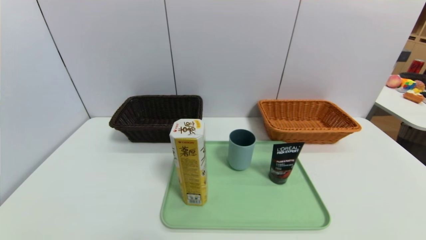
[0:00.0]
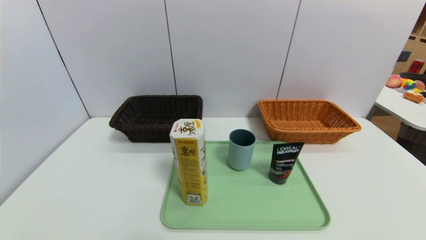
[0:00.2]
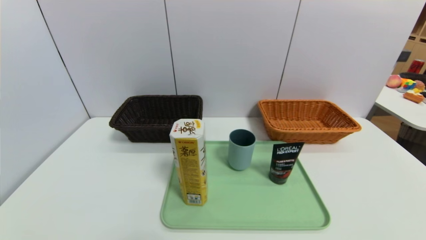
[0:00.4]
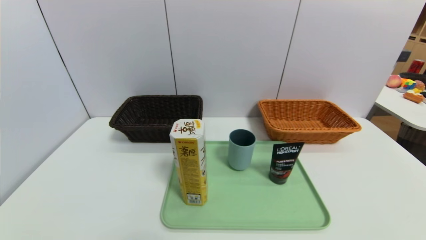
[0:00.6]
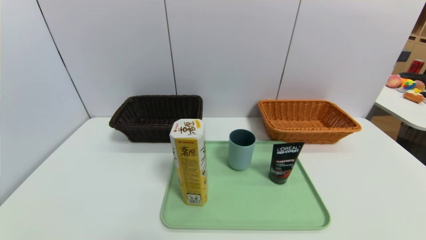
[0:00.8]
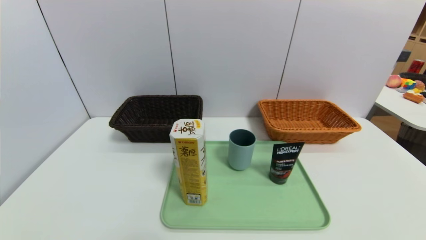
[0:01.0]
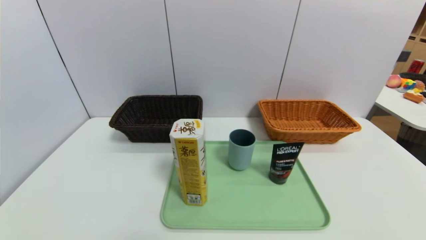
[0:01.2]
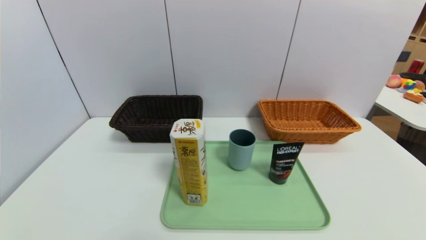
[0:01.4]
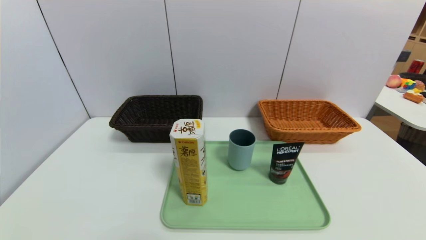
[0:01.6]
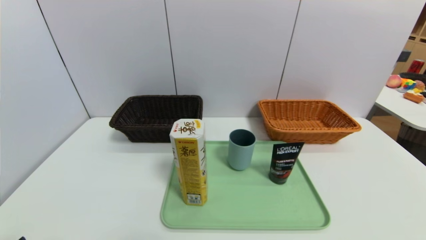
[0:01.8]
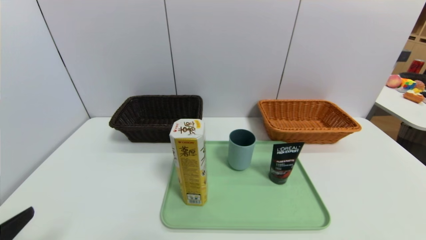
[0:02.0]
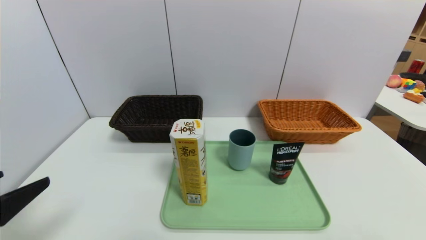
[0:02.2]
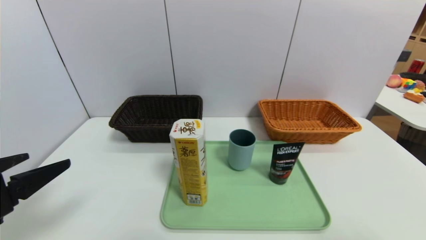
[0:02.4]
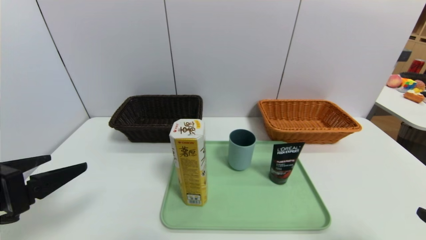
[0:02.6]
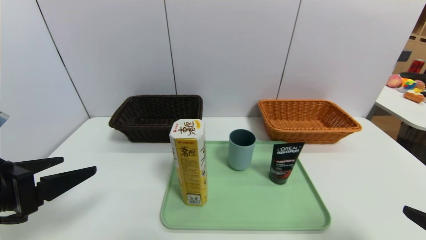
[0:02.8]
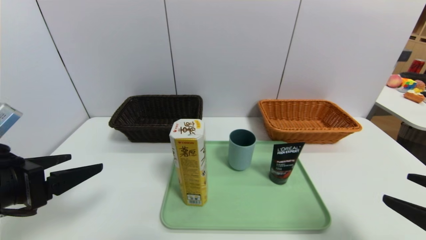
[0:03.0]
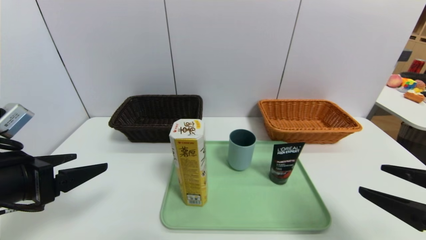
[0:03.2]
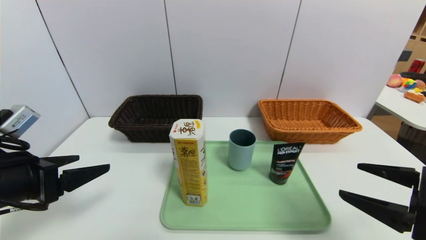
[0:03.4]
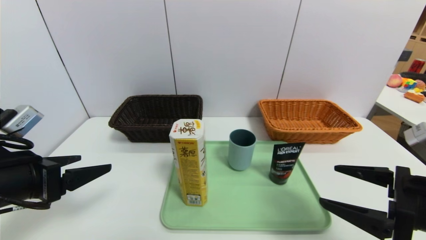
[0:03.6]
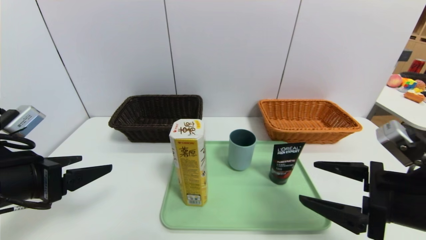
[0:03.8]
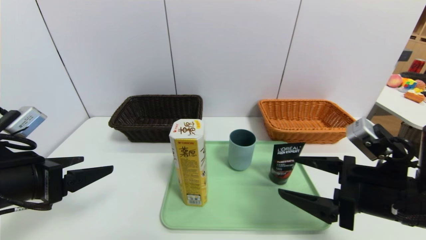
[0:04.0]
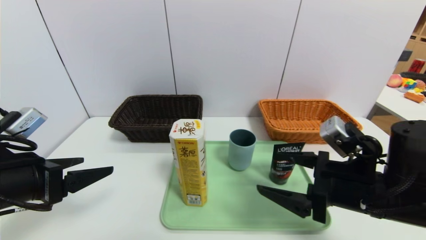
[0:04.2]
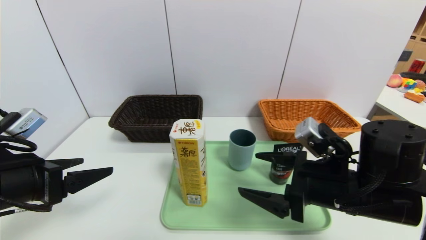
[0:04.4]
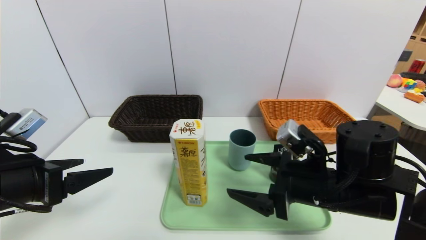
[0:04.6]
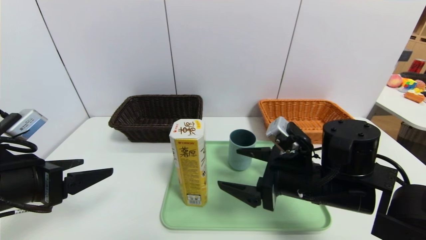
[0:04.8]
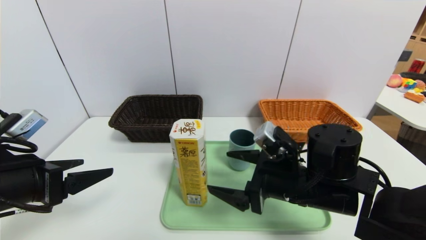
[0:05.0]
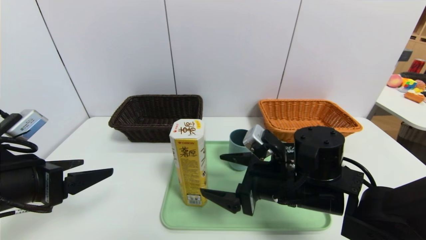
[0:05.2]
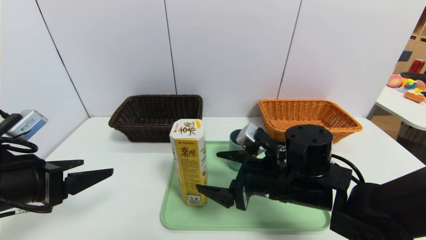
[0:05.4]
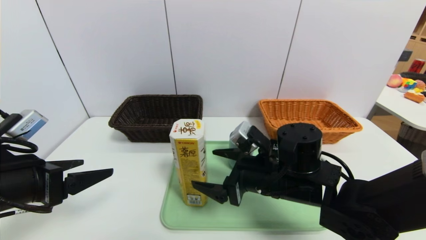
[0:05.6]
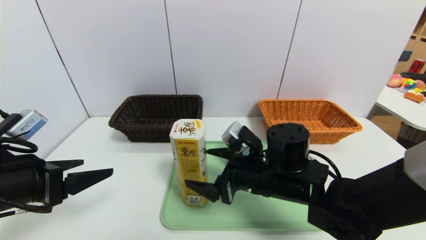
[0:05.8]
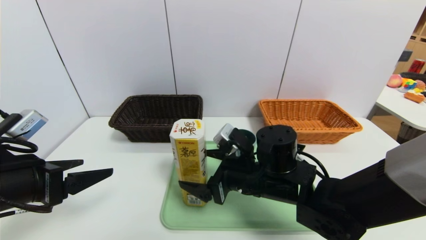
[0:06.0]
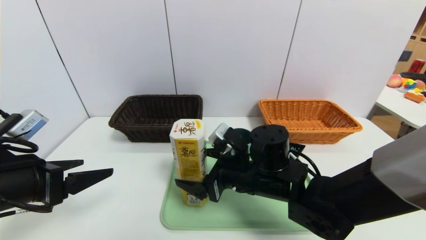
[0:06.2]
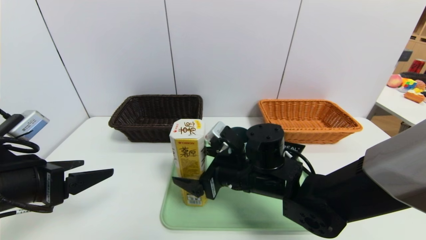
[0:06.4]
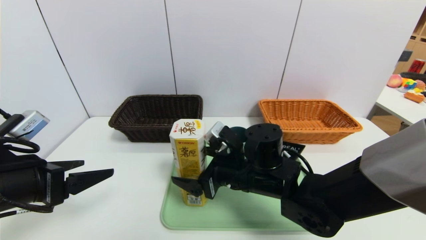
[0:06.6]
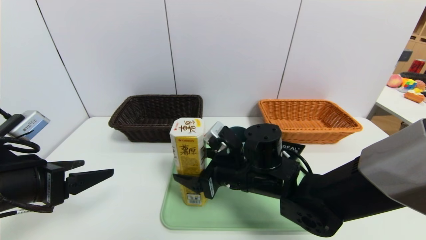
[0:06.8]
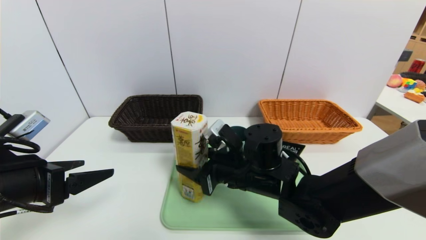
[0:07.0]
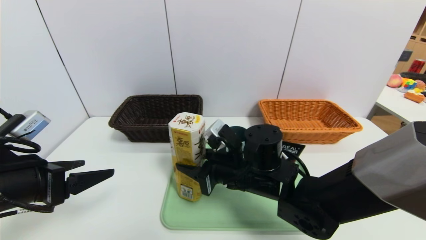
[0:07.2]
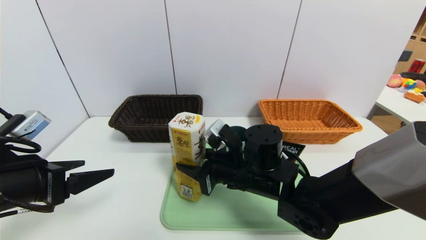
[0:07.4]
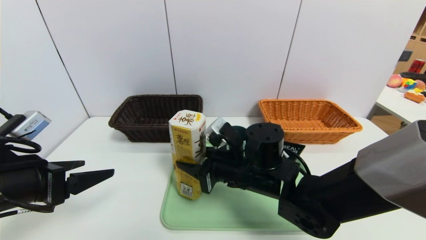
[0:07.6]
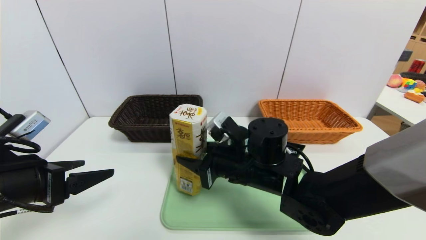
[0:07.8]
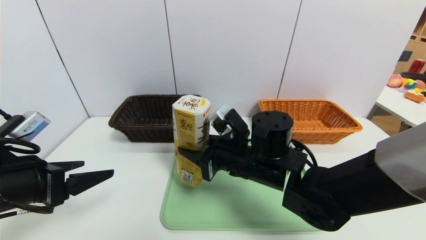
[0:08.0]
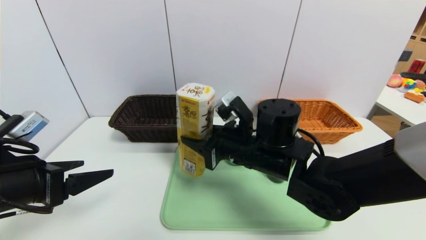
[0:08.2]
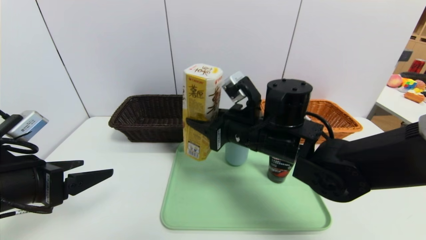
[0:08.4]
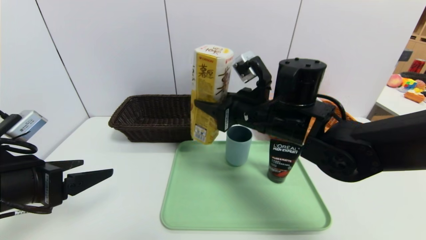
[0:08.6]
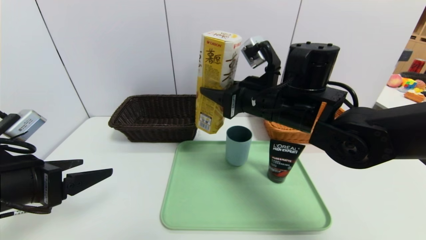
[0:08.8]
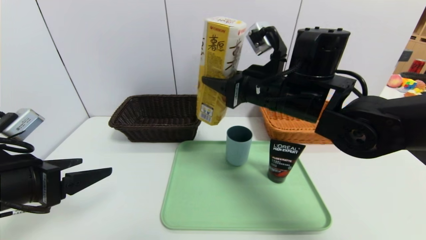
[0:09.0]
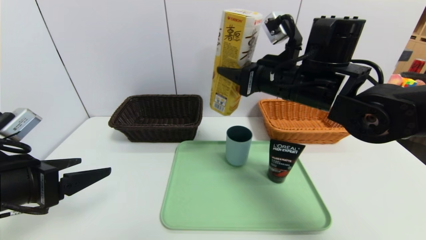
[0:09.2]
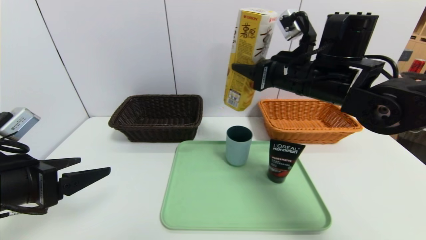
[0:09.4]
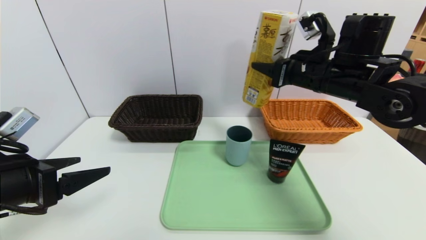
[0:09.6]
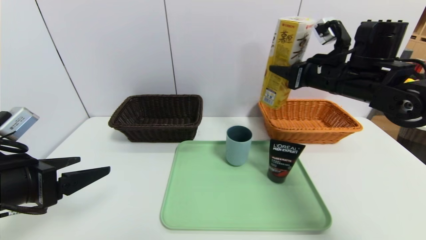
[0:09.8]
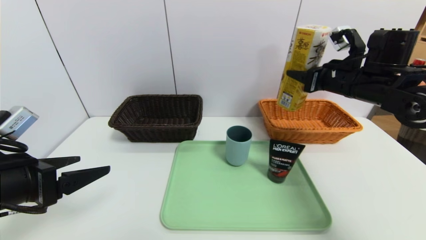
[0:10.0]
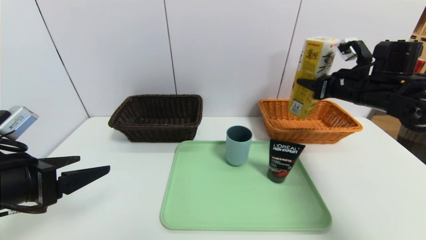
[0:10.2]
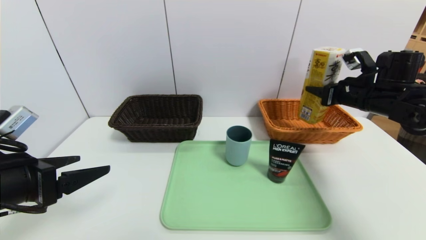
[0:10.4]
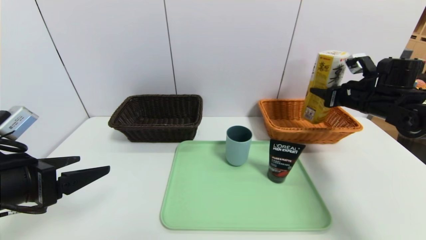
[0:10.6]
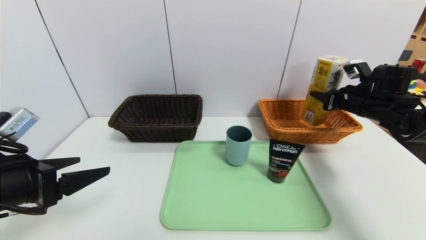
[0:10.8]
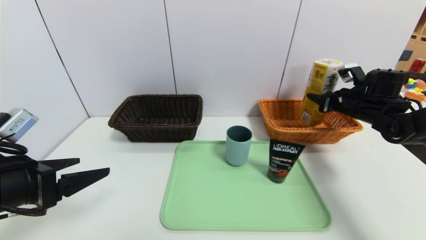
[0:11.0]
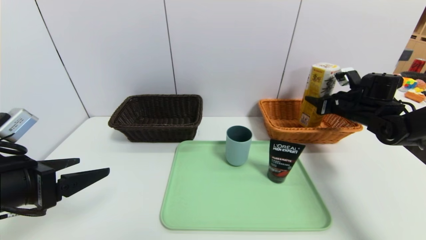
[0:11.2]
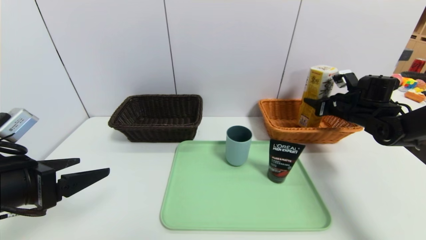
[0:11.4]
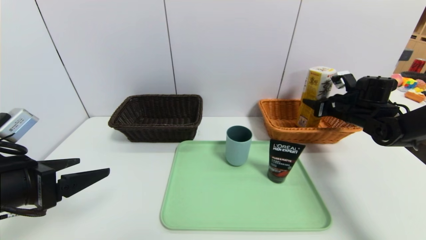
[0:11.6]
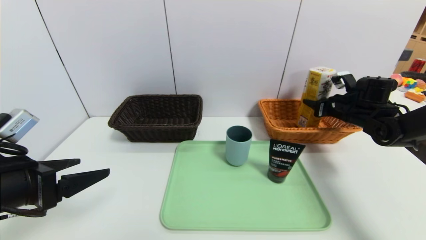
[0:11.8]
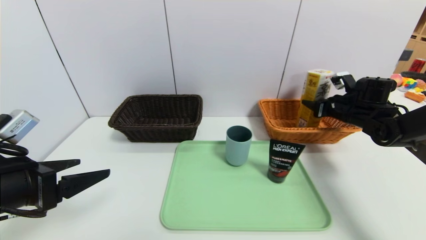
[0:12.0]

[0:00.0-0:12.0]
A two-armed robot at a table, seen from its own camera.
Task of the whole recording: place the food in the right basket with the right gripper, and place the non food items in the left basket with the left gripper.
0:01.6 to 0:03.0: Both grippers travel together forward and upward, about 15 cm.
0:03.0 to 0:04.4: The right gripper heads to the left and forward, covering approximately 20 cm.
0:04.4 to 0:06.0: The right gripper shifts some 10 cm to the left and forward.
0:06.0 to 0:07.6: The right gripper closes its fingers.
0:07.6 to 0:09.0: The right gripper moves upward, some 15 cm.
0:09.0 to 0:10.4: The right gripper moves to the right, about 20 cm.
0:10.4 to 0:12.0: The right gripper shifts roughly 10 cm downward and forward.

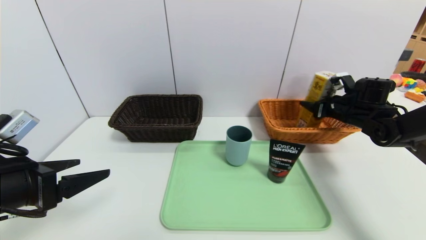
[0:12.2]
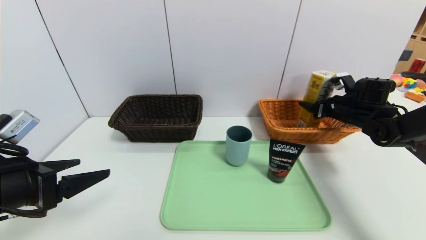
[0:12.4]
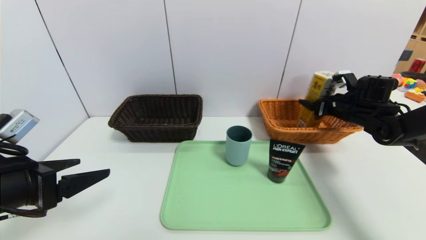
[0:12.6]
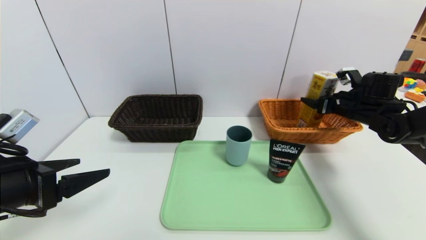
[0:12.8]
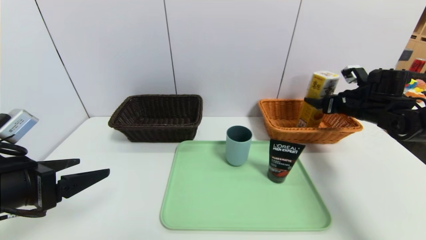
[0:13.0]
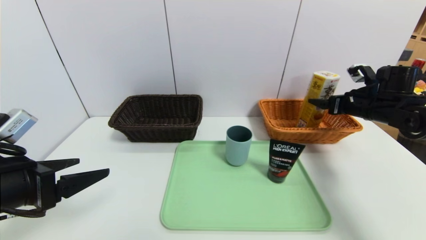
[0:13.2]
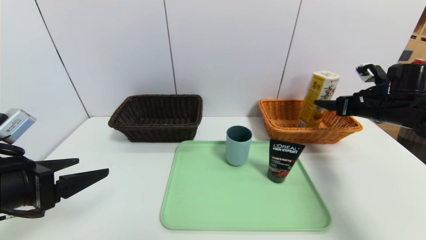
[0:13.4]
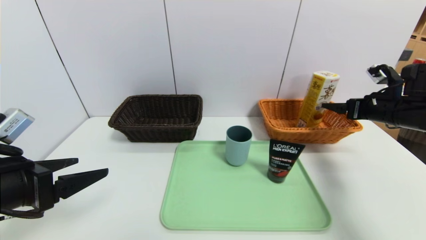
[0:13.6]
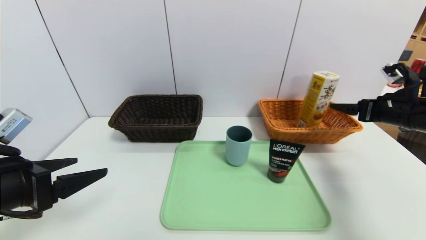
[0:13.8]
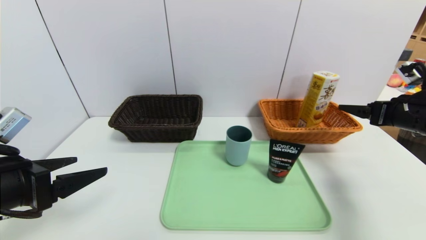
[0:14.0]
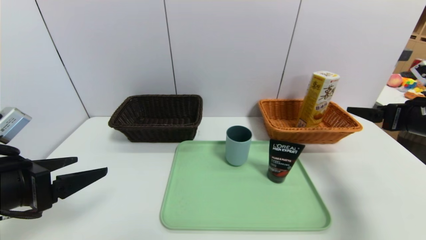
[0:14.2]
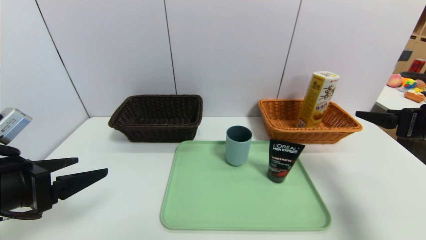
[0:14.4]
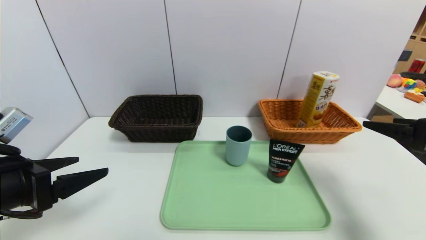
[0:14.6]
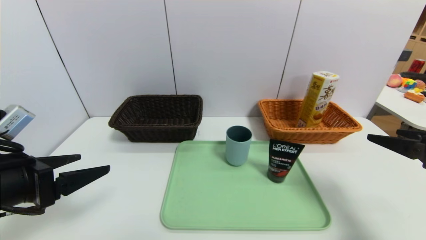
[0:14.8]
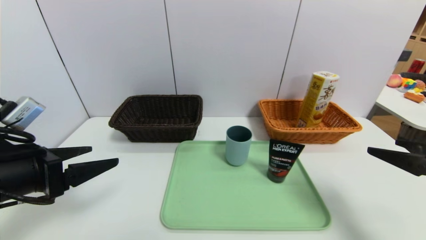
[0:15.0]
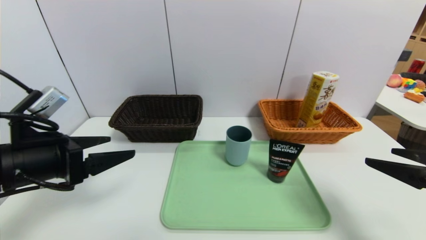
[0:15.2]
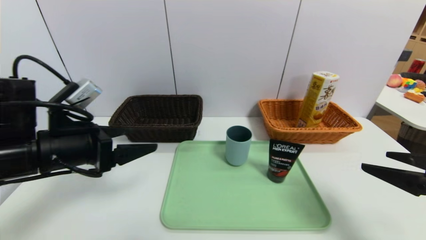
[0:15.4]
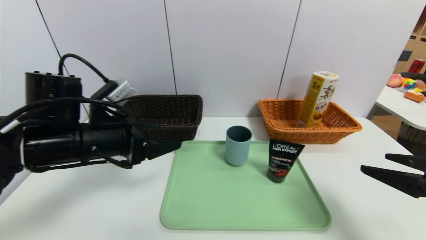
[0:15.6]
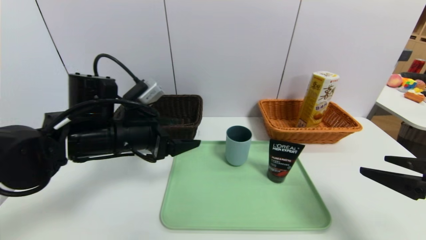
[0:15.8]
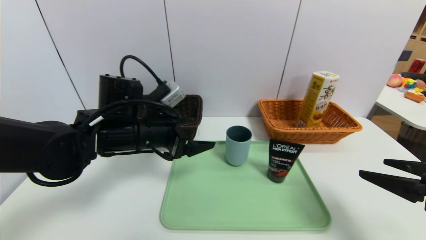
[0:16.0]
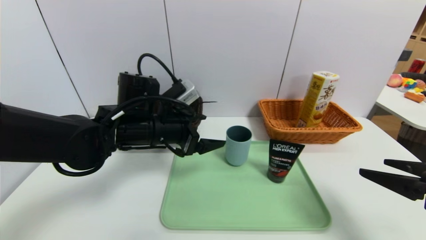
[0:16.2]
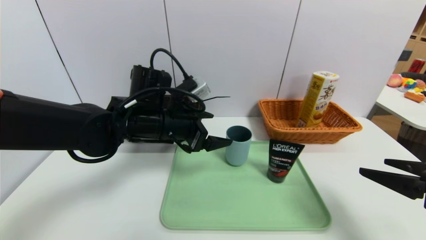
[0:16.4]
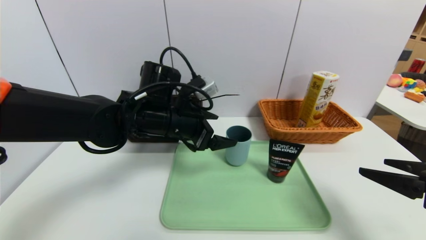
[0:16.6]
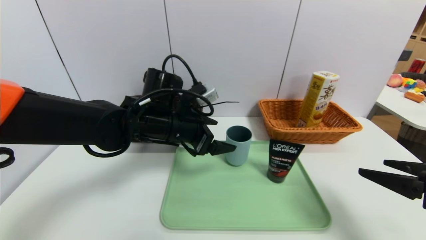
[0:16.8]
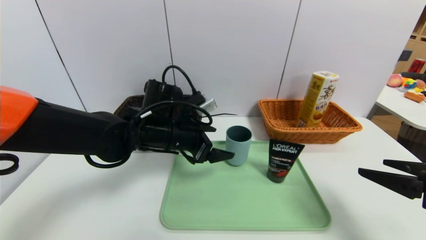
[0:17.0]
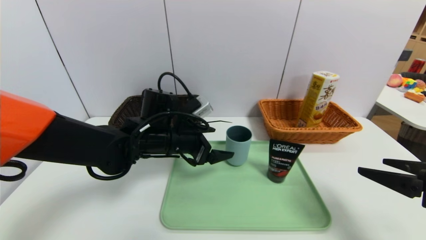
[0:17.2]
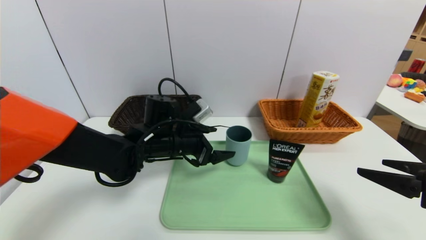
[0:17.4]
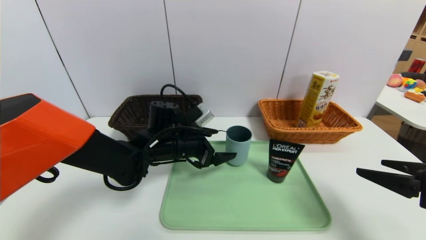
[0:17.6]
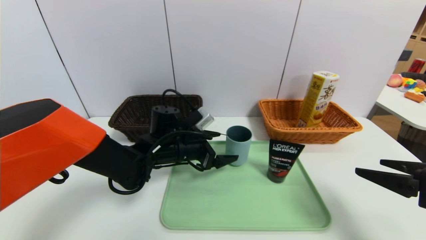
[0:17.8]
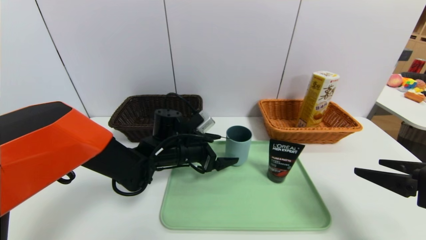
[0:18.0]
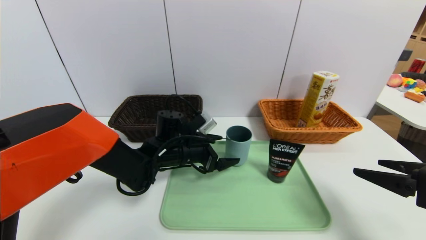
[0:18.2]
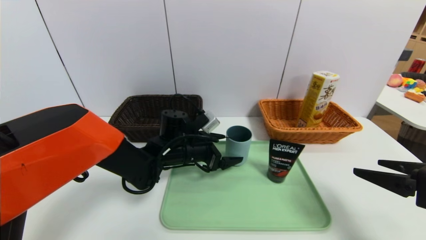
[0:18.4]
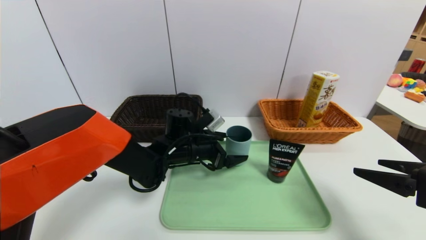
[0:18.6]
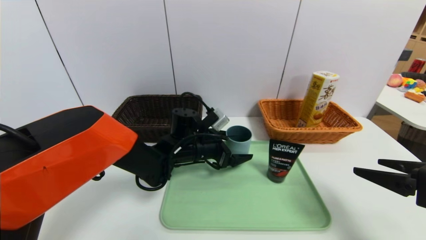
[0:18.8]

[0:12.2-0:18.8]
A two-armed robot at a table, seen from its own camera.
Task of the whole recording: place the food in the right basket with the right gripper, and place the non food items in the left basket with the left gripper.
0:12.2 to 0:13.8: The right gripper heads backward and upward, covering some 15 cm, and opens its fingers.
0:13.8 to 0:15.4: The left gripper moves forward and to the right, about 10 cm. The right gripper goes some 20 cm backward.
0:15.4 to 0:17.2: The left gripper travels to the right, forward and downward by roughly 20 cm.
0:17.2 to 0:18.8: The left gripper heads downward, covering some 5 cm.
